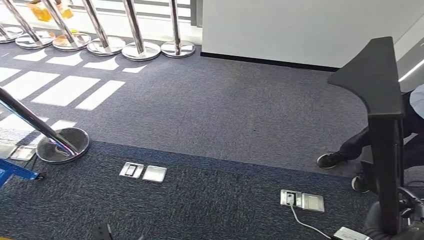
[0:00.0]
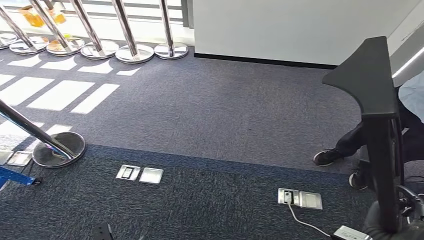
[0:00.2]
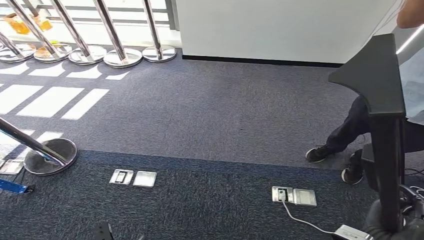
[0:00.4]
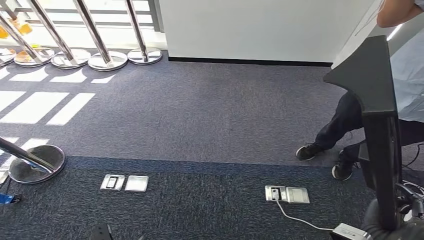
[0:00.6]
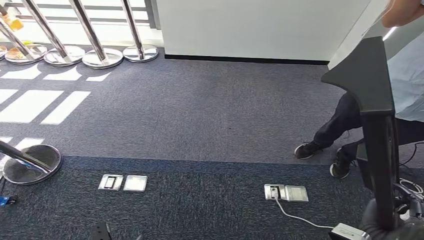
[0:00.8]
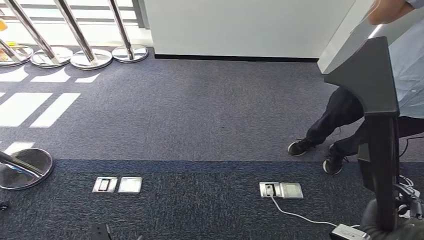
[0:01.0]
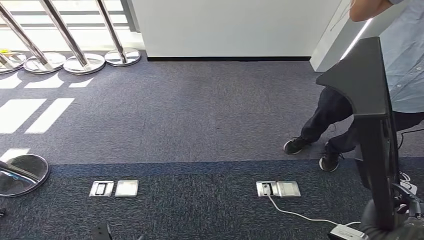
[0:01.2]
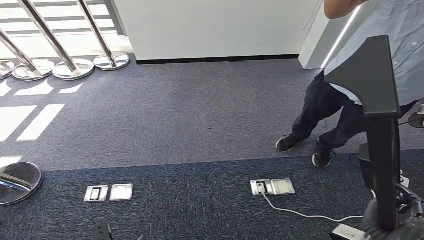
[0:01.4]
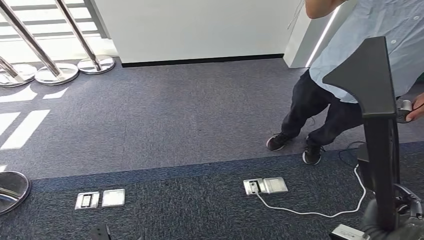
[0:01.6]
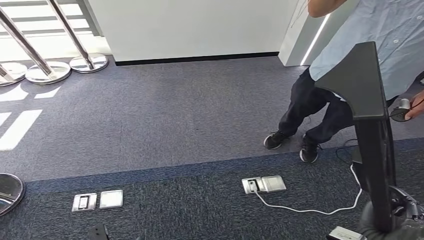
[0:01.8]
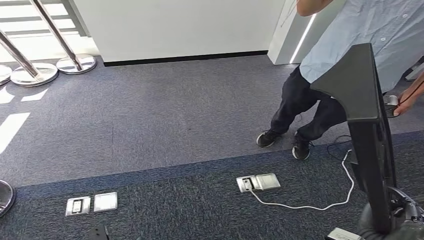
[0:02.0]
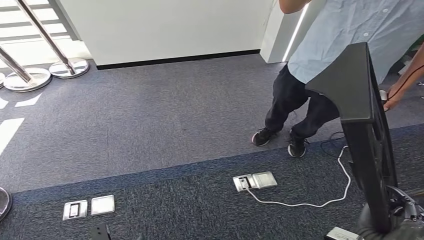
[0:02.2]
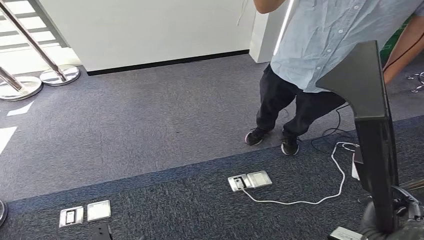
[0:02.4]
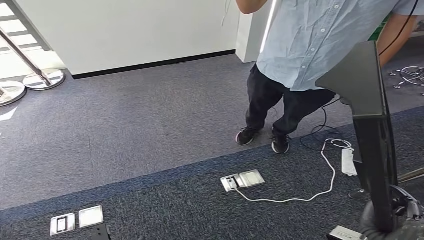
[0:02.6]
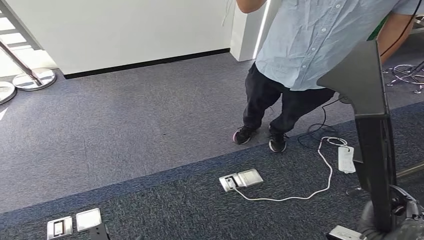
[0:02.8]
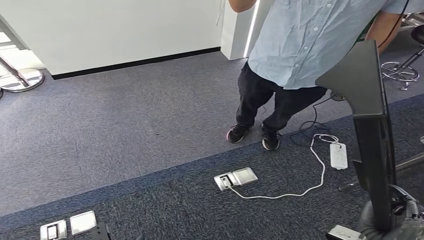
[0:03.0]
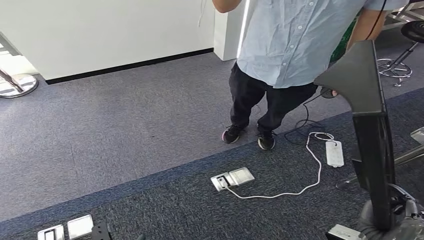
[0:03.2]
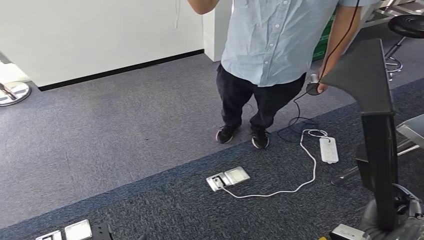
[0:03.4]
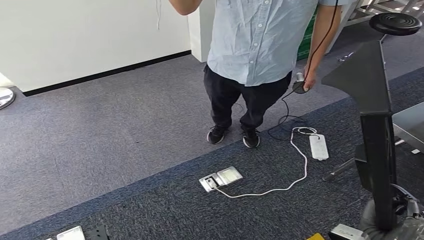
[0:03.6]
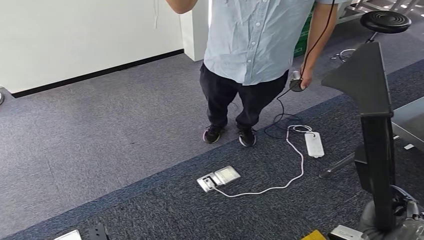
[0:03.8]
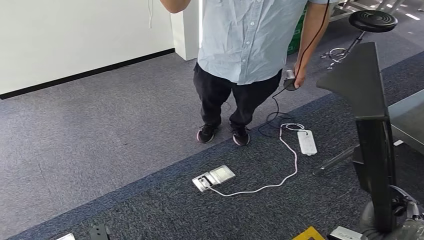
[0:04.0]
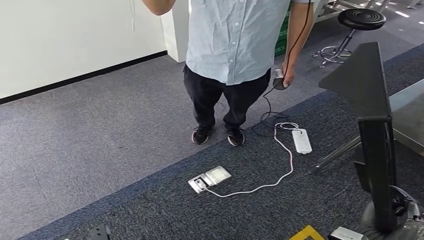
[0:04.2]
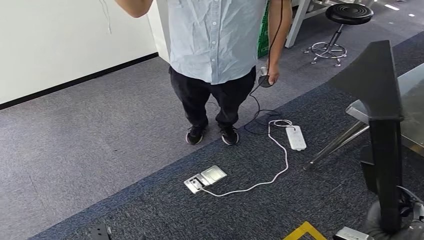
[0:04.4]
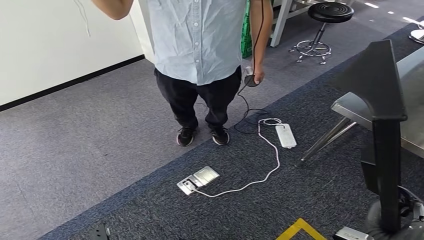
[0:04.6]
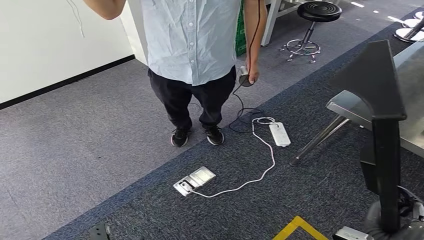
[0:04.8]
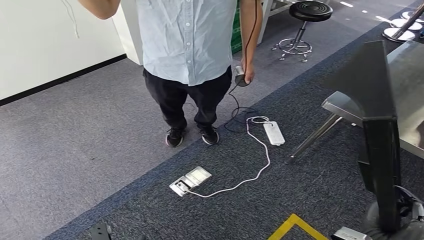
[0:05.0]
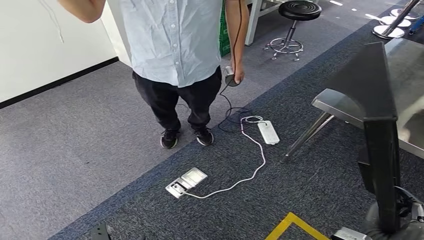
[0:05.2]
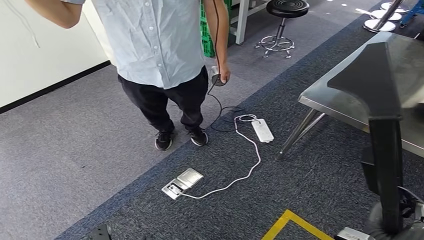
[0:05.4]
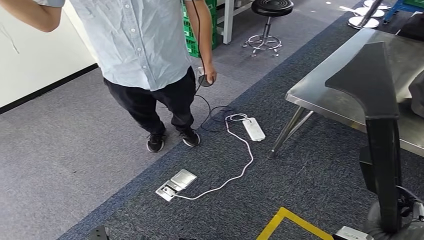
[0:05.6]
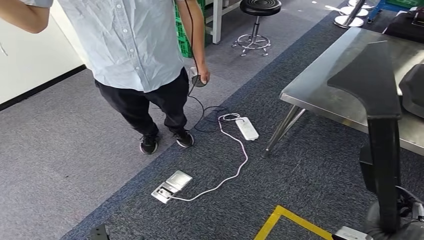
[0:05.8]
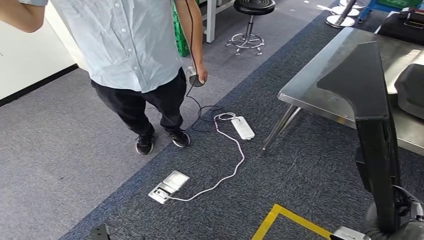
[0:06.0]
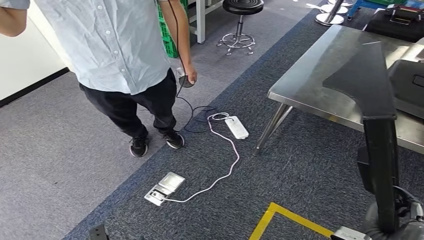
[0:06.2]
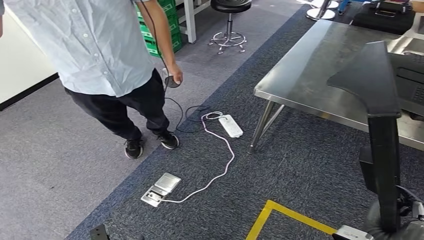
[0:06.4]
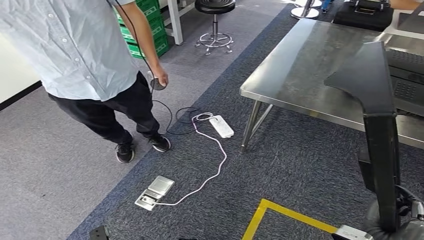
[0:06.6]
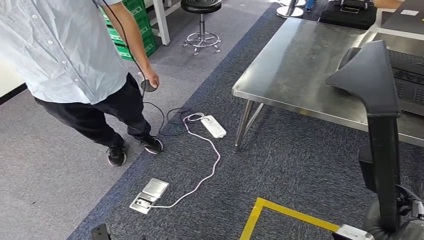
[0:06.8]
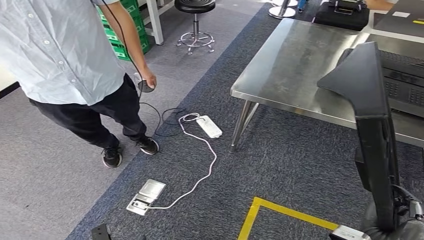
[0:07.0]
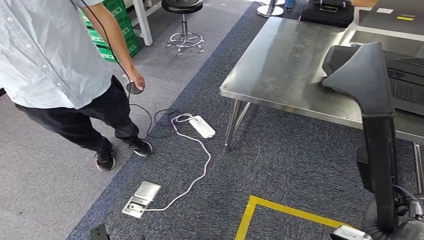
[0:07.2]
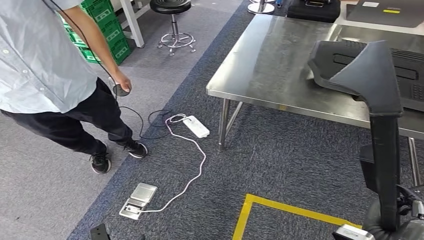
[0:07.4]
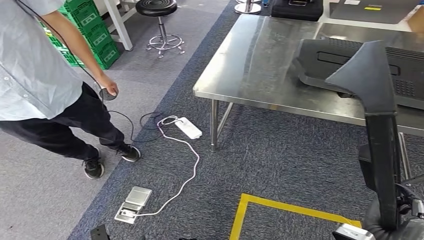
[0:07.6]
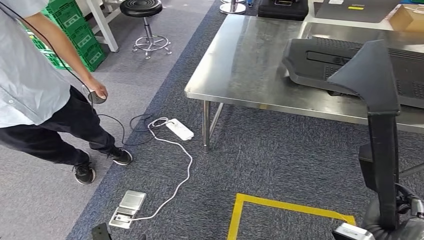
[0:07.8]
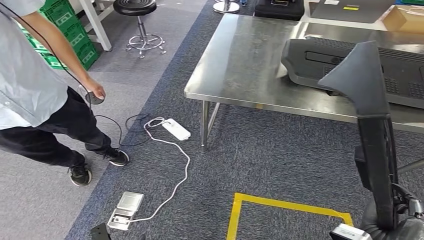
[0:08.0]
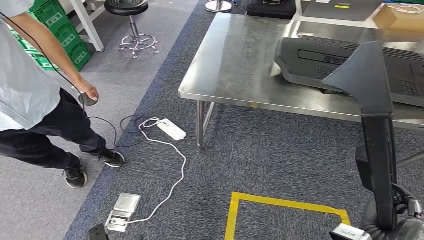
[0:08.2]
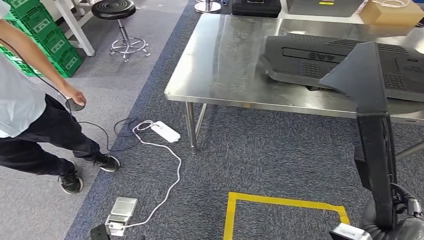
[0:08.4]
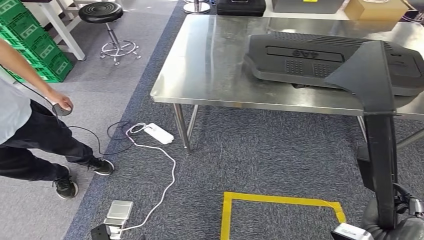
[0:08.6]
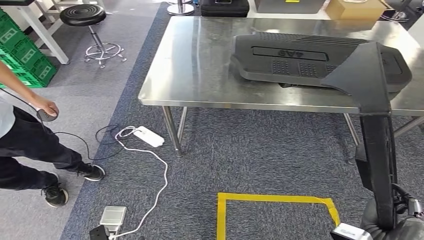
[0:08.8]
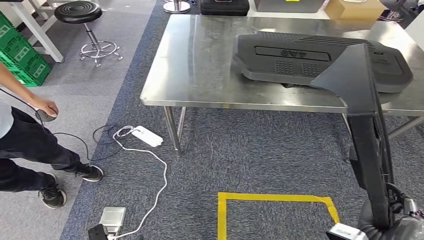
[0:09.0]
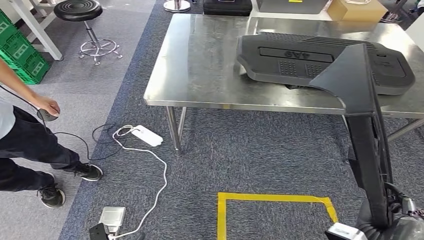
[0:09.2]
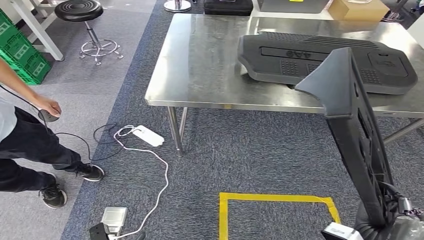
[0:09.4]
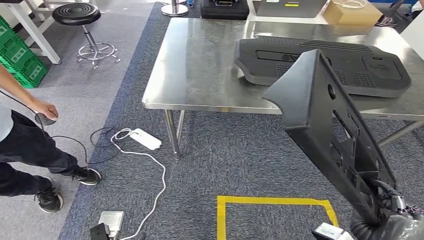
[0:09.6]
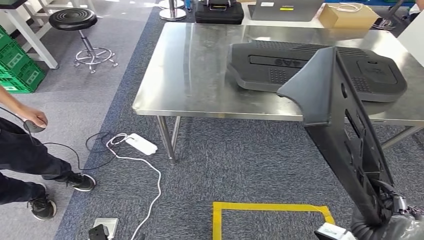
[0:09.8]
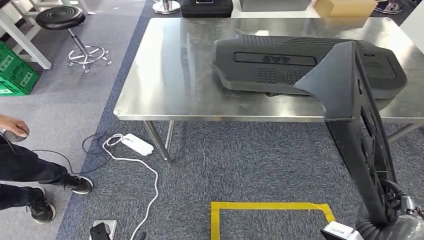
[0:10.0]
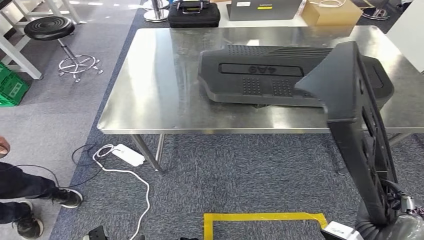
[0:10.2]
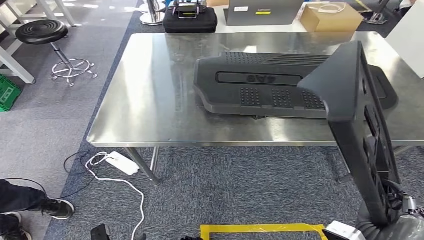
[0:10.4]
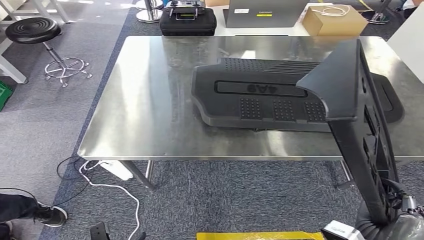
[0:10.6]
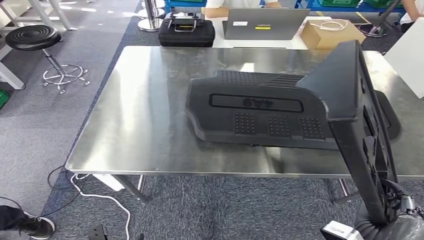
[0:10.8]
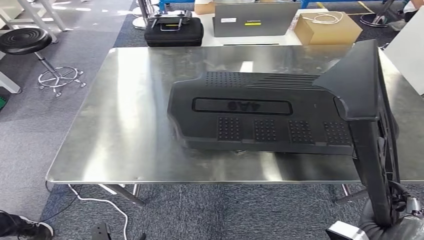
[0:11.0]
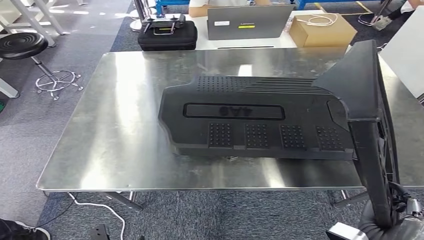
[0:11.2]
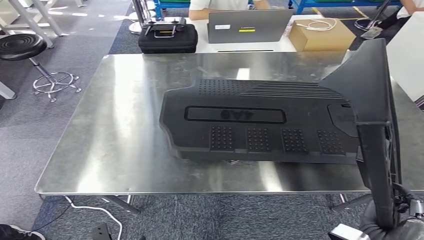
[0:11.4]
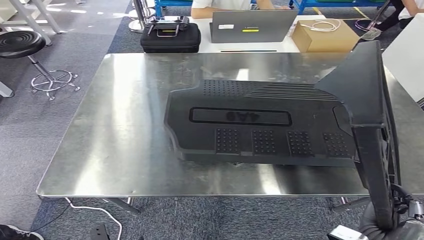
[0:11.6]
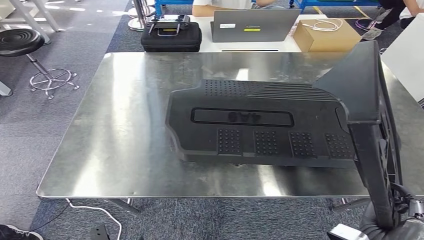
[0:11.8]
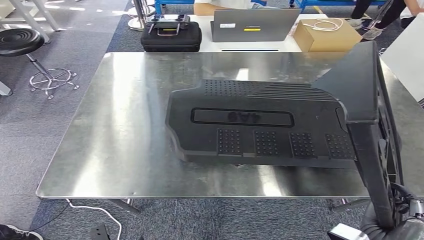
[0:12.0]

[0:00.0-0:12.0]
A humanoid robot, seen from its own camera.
Step, 0:00.0 to 0:11.4: Move the large material to the workbench.

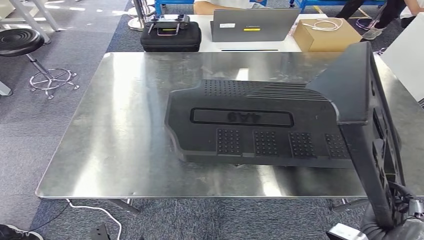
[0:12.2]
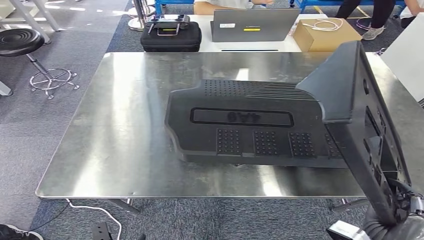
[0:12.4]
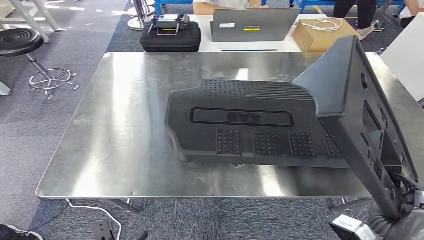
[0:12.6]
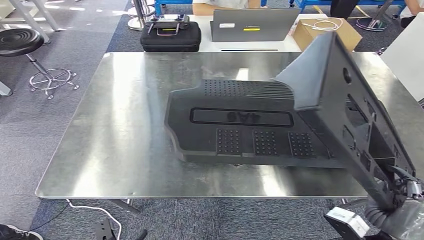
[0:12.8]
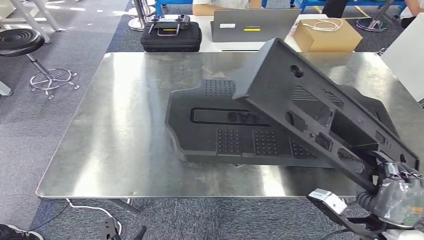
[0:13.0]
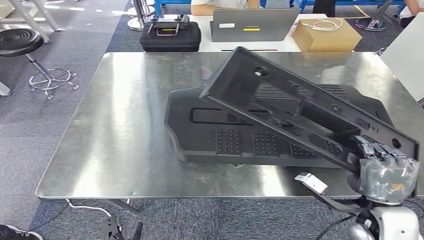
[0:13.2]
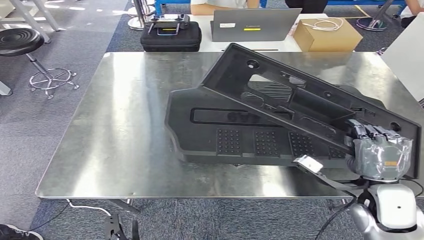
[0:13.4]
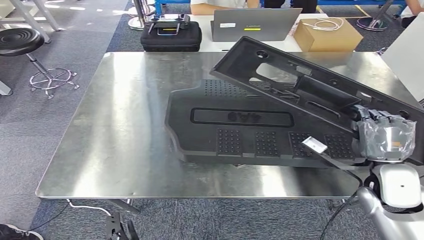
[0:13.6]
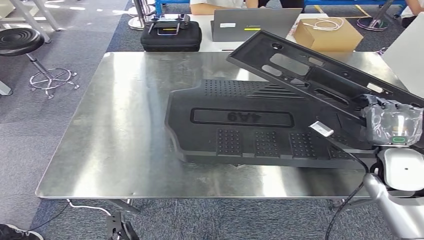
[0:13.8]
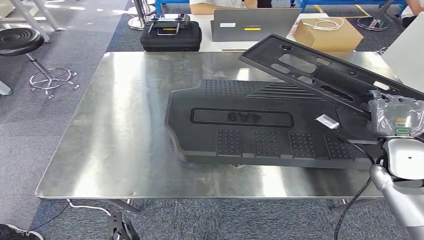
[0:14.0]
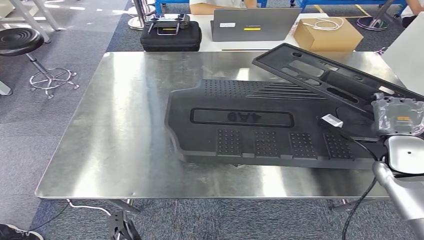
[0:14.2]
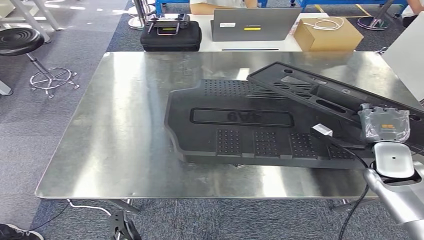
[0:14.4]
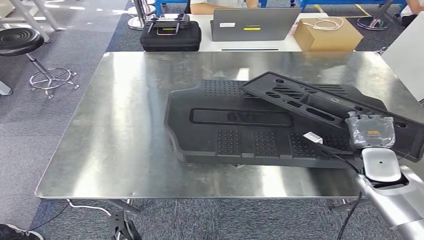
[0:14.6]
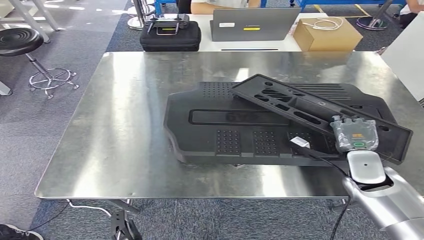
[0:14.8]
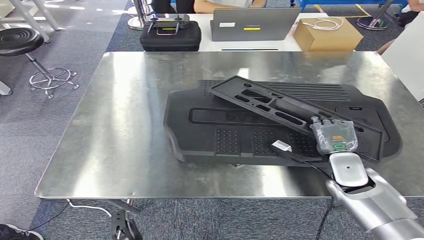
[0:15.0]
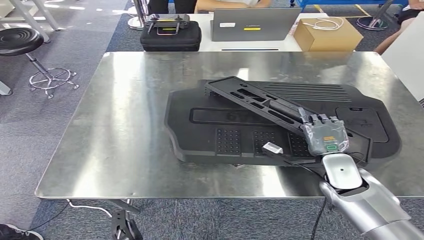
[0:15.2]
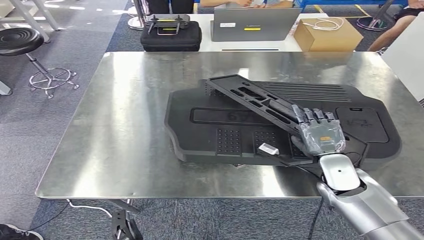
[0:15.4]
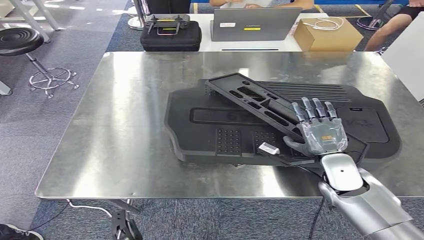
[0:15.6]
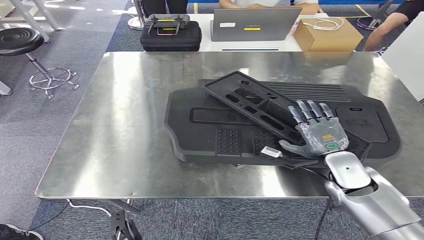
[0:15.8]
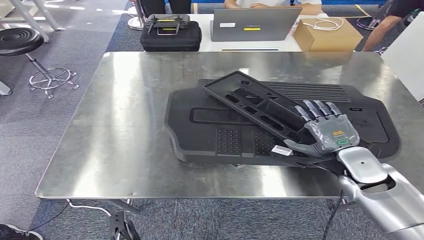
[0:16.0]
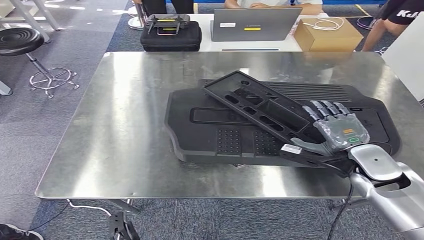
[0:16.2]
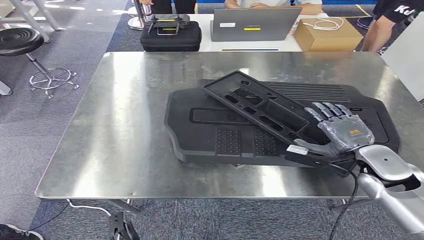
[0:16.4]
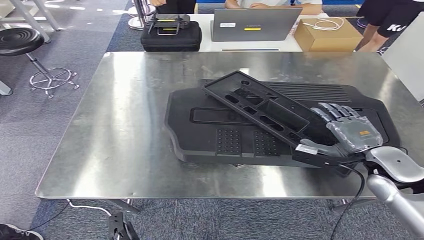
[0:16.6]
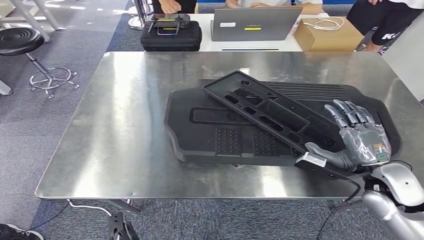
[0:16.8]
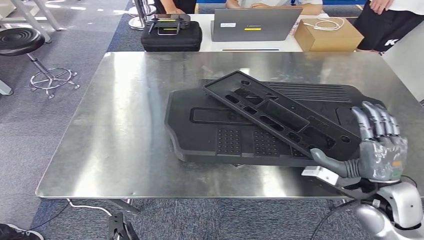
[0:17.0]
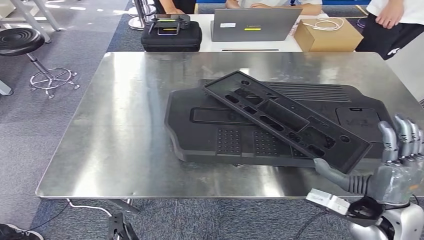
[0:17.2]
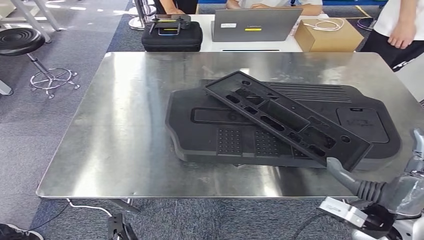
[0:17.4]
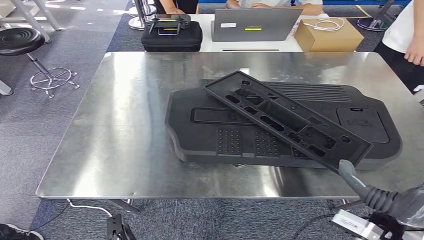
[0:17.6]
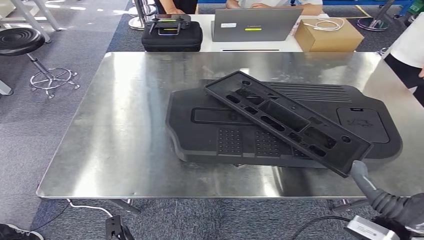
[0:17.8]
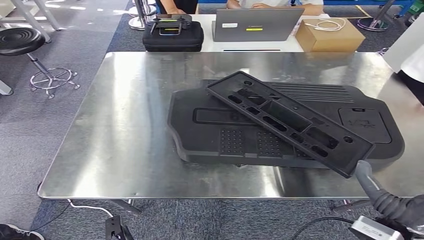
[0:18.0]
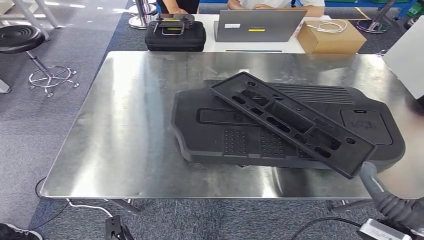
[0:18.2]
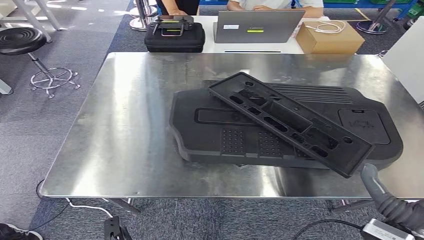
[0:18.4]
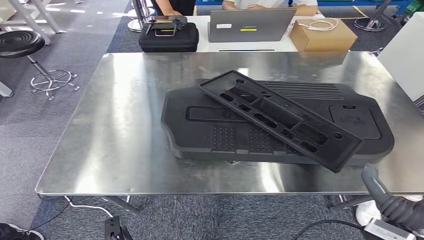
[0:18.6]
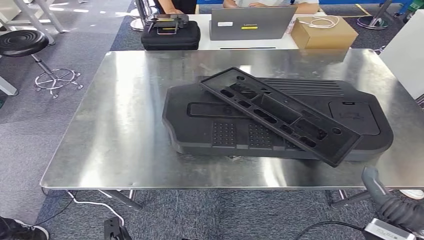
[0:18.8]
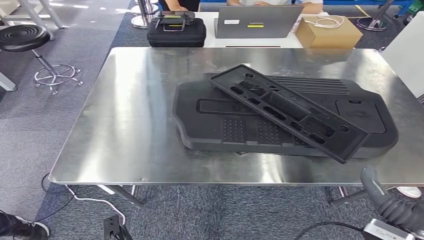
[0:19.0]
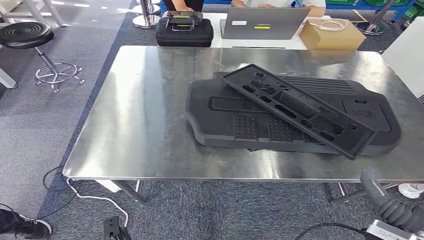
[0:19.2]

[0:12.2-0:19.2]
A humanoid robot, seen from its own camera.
Step, 0:12.2 to 0:16.4: Insert the large material into the corresponding slot on the workbench.
0:12.2 to 0:13.6: The right hand heads forward and upward, covering roughly 20 cm.
0:13.6 to 0:15.0: The right hand moves downward and forward, about 10 cm.
0:15.0 to 0:16.4: The right hand travels upward by roughly 5 cm.
0:16.4 to 0:17.8: The right hand heads backward, covering roughly 15 cm.
